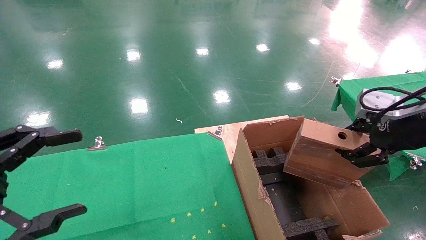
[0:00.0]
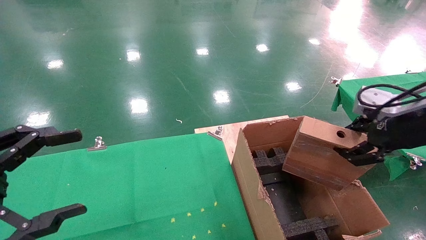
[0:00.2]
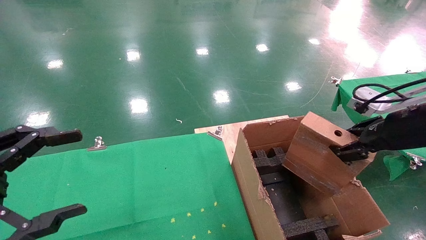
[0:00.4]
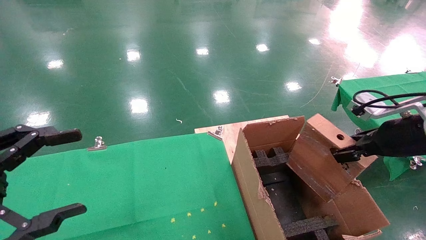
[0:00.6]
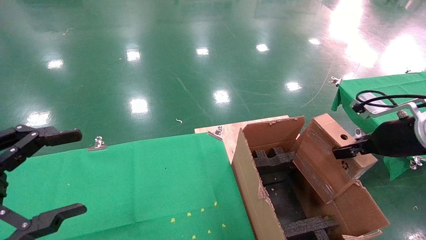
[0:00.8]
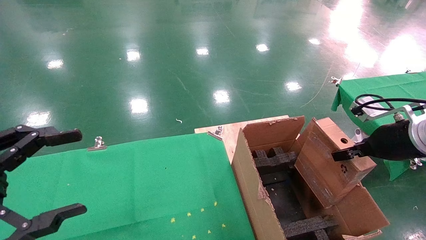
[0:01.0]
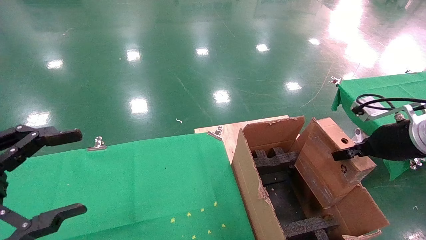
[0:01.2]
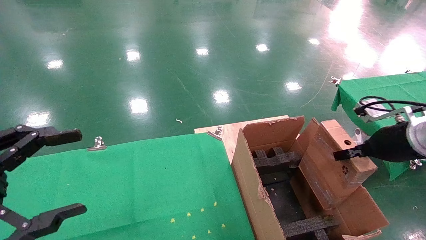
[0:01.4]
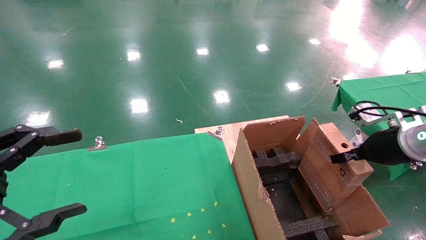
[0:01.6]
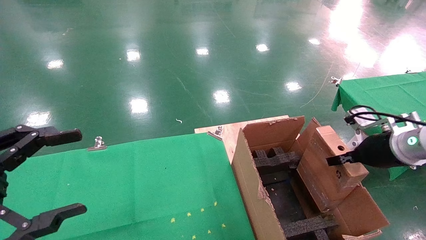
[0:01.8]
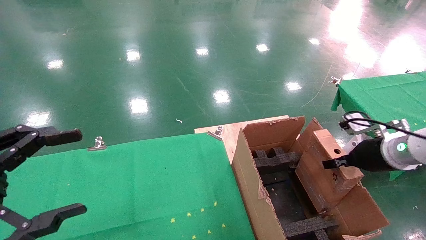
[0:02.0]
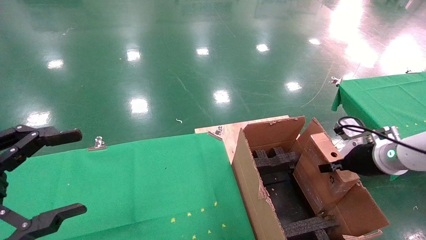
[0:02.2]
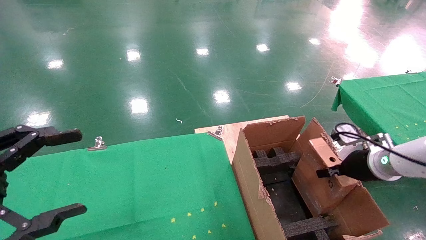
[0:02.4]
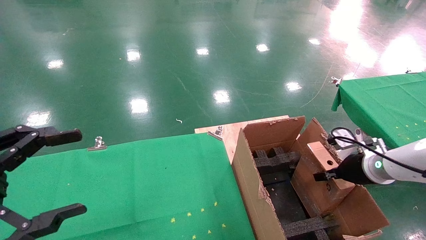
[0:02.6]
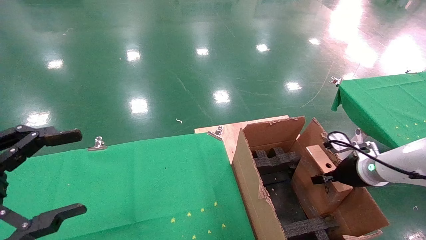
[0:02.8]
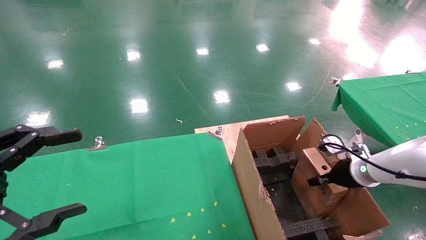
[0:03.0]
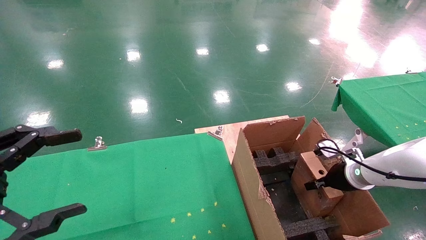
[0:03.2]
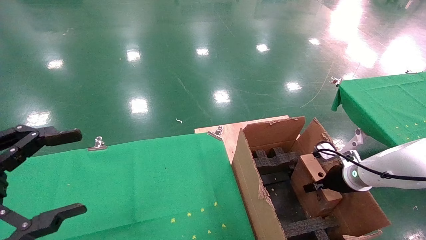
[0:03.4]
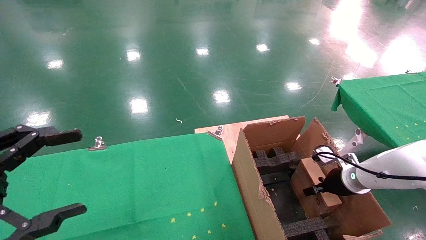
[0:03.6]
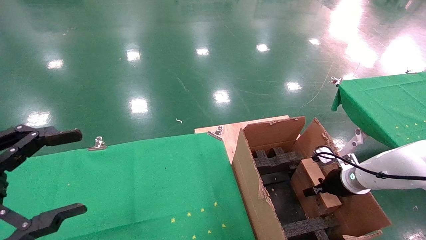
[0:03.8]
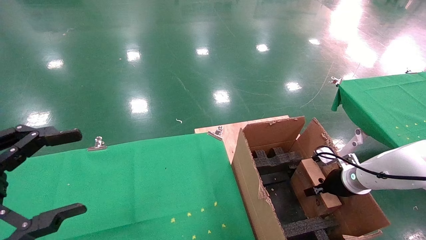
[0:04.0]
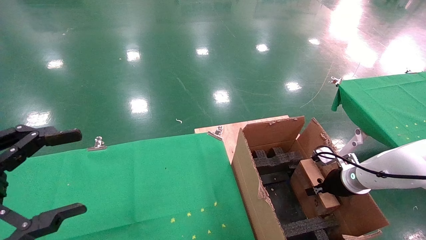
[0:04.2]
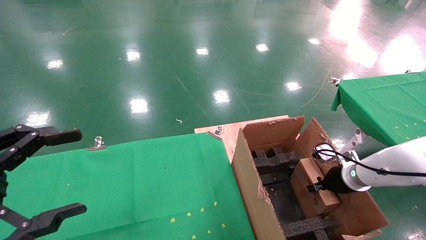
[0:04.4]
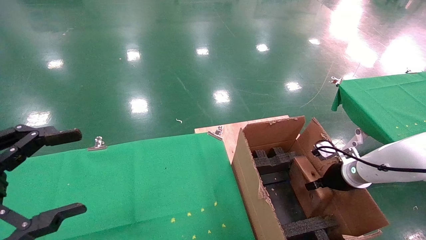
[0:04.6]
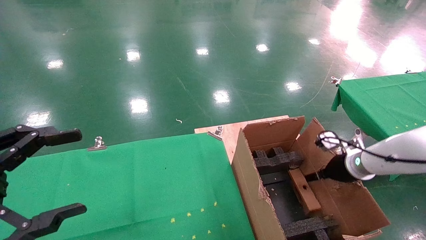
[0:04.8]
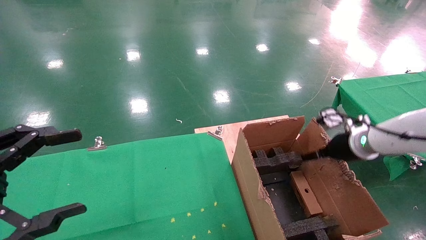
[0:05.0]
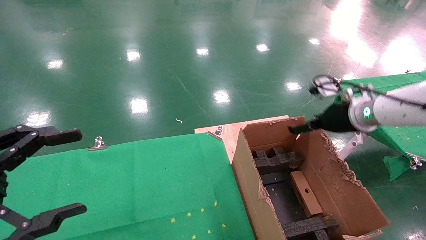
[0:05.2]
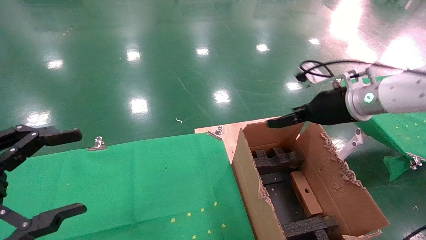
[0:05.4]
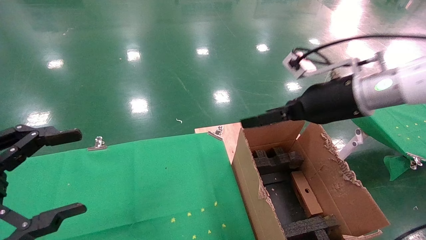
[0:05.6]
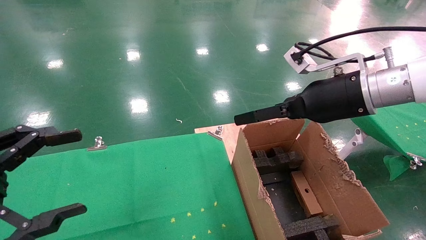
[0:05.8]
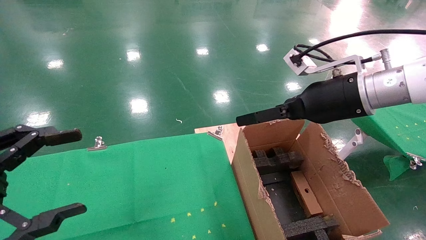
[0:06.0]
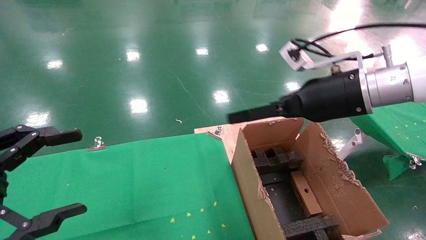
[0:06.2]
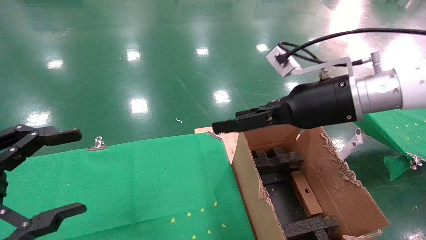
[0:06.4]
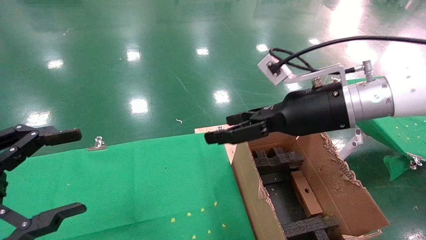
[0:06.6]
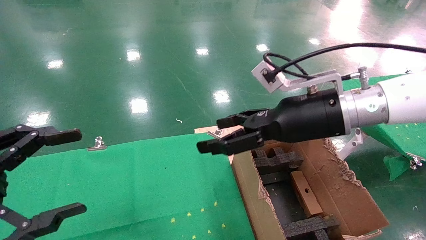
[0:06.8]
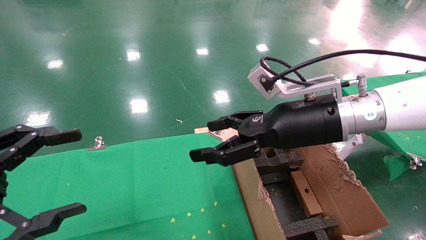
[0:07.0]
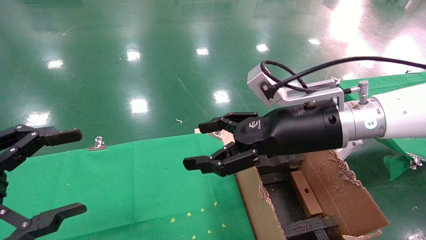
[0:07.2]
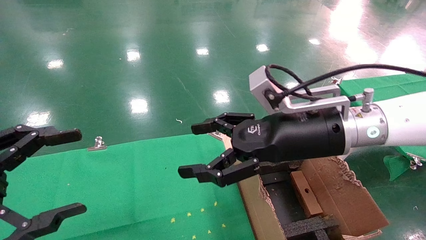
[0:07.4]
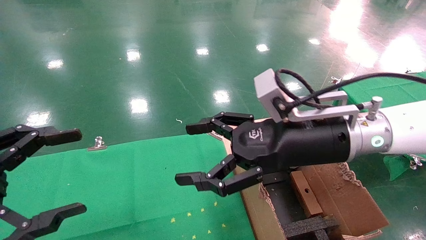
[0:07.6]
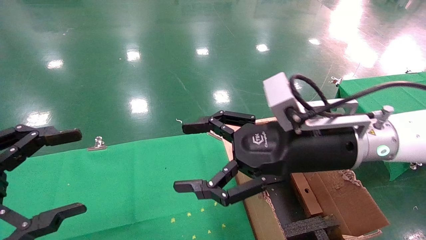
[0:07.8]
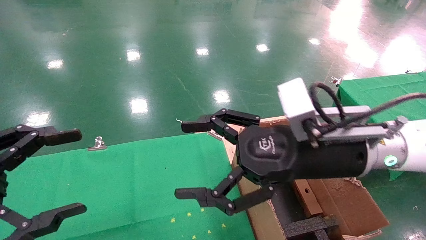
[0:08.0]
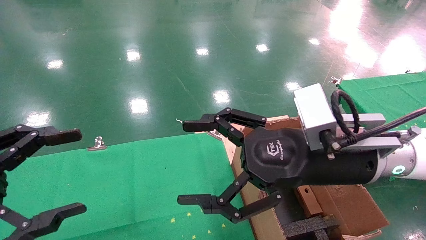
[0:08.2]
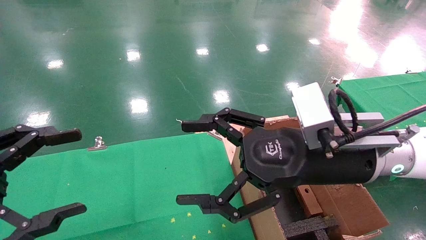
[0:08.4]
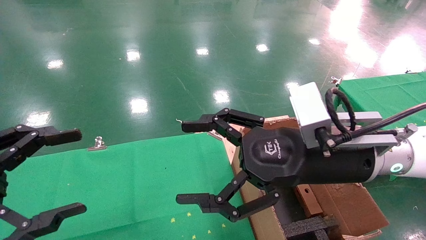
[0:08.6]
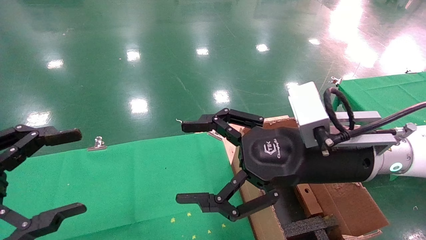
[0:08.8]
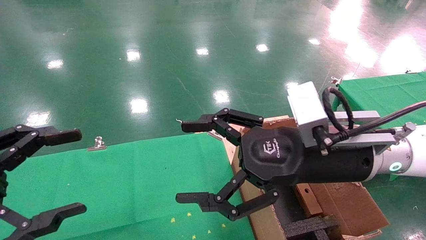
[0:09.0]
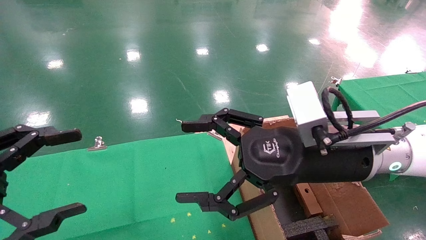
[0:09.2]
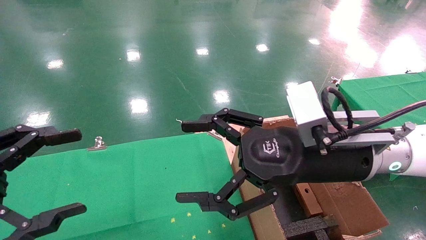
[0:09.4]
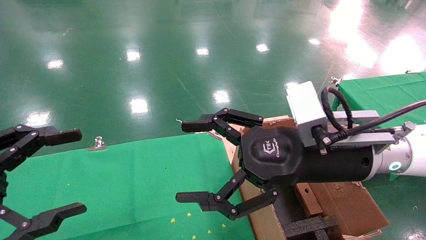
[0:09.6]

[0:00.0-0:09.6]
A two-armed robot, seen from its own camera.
Task of the whole recording: using a robotic arm to pick up a cardboard box and palace it the carton.
Step, 0:00.0 to 0:04.6: Place the mouse and the power cord paper box into the container.
0:00.0 to 0:01.6: The right gripper heads downward and forward, covering about 10 cm.
0:01.6 to 0:03.2: The right gripper heads downward and forward, covering approximately 15 cm.
0:03.2 to 0:04.8: The right gripper opens its fingers.
0:04.8 to 0:06.4: The right gripper is displaced upward, to the left and backward by some 25 cm, and opens.
0:06.4 to 0:08.0: The right gripper travels backward by roughly 5 cm.
0:08.0 to 0:09.6: Neither gripper changes place.
